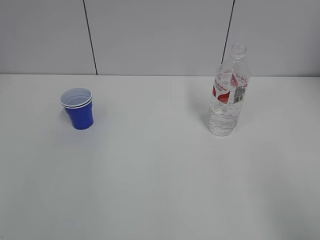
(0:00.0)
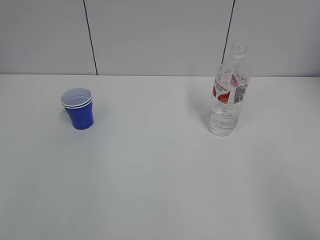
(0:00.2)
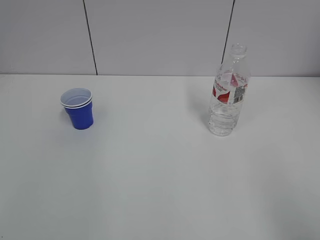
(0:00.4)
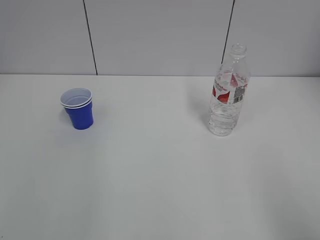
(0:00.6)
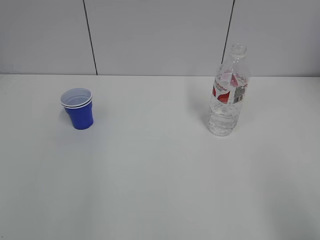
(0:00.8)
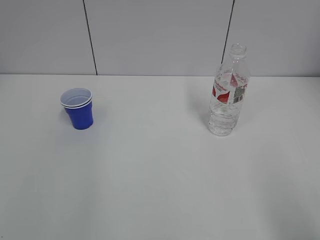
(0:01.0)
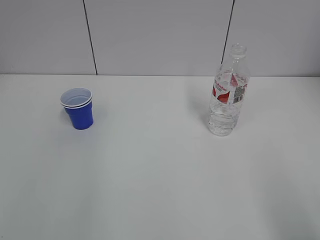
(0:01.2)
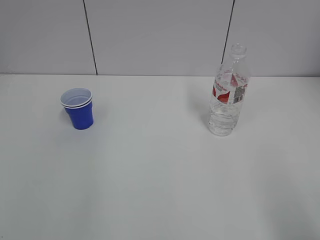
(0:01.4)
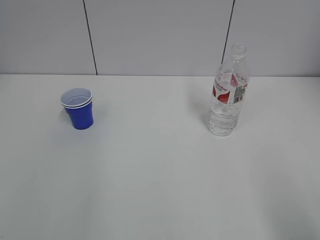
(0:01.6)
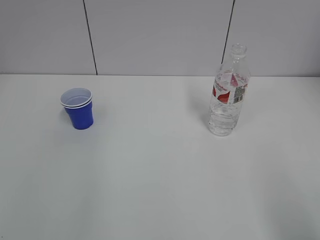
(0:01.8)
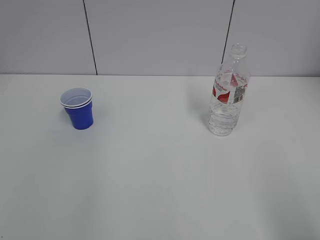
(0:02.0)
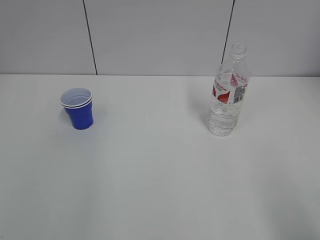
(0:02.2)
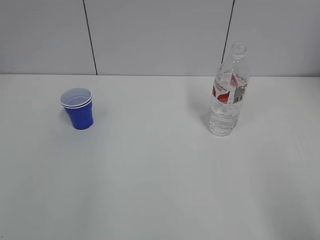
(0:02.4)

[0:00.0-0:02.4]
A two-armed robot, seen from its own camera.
0:01.2 to 0:02.4: Both grippers stay put.

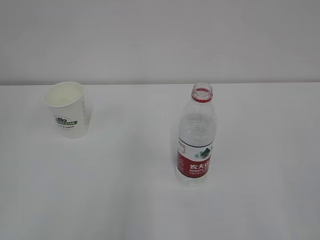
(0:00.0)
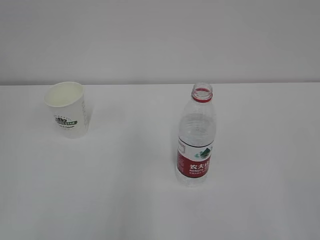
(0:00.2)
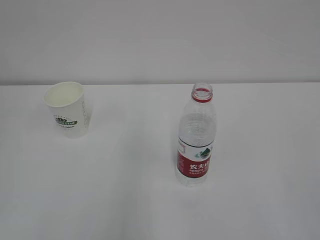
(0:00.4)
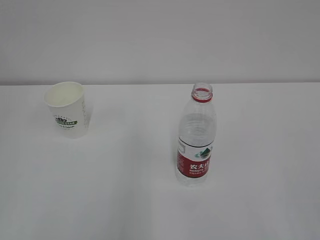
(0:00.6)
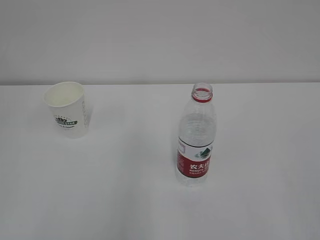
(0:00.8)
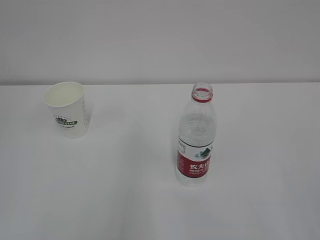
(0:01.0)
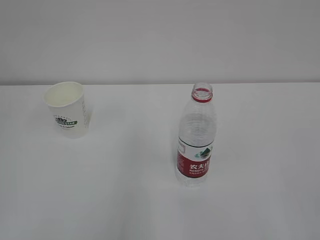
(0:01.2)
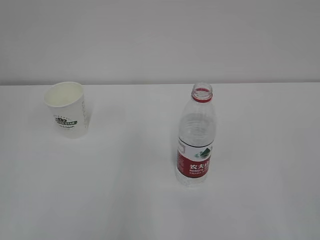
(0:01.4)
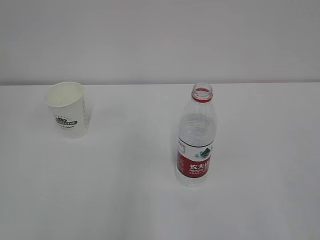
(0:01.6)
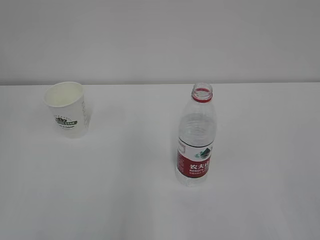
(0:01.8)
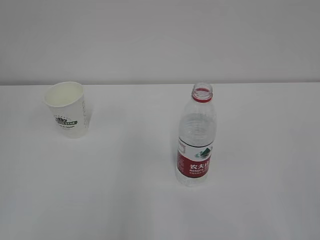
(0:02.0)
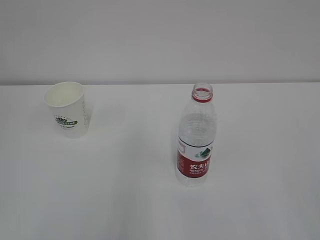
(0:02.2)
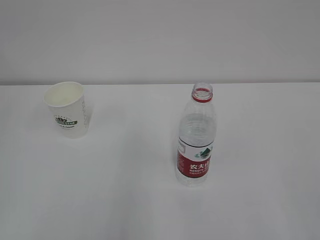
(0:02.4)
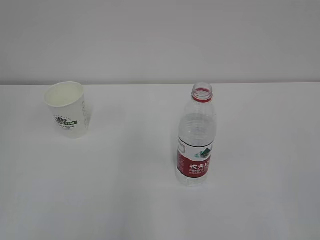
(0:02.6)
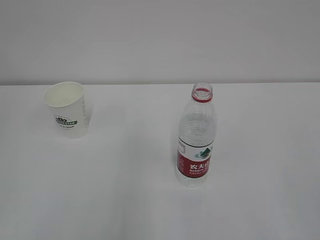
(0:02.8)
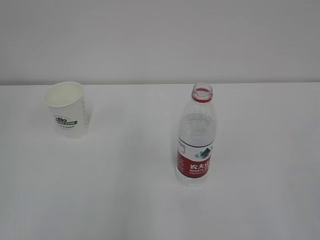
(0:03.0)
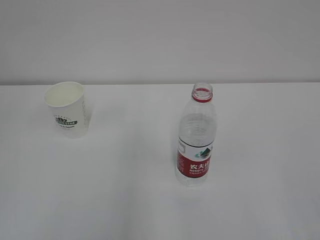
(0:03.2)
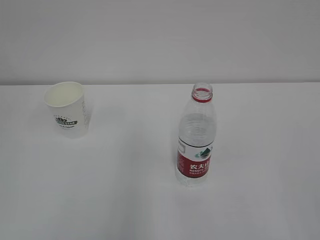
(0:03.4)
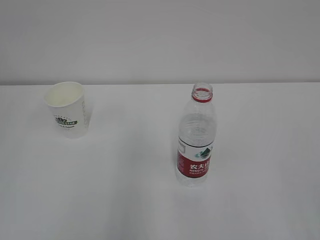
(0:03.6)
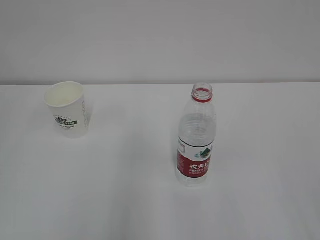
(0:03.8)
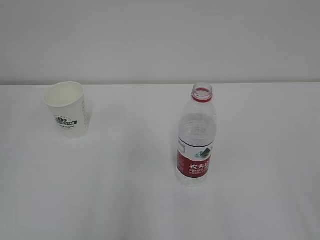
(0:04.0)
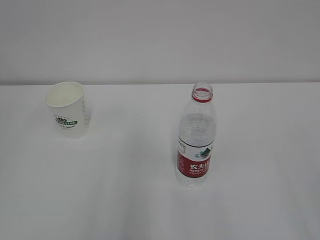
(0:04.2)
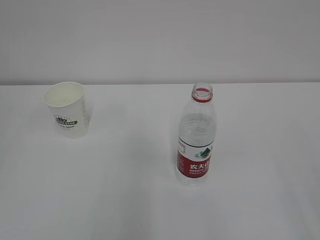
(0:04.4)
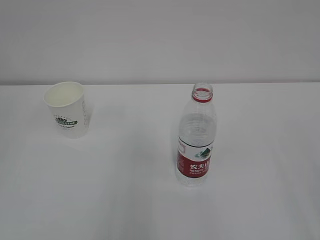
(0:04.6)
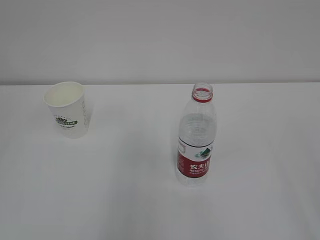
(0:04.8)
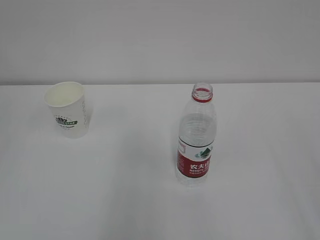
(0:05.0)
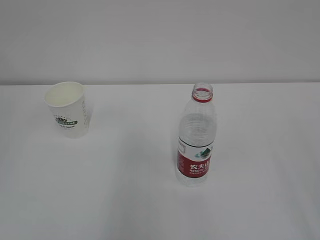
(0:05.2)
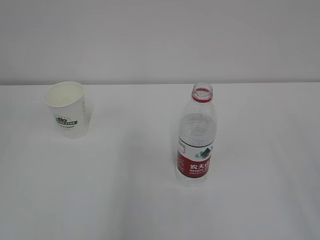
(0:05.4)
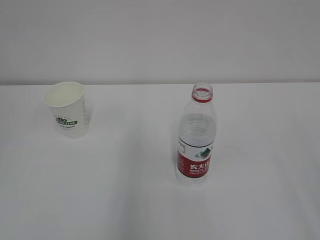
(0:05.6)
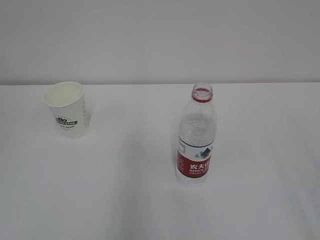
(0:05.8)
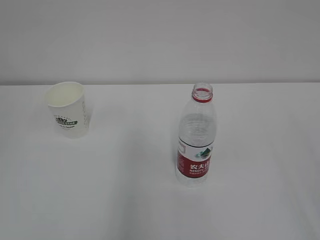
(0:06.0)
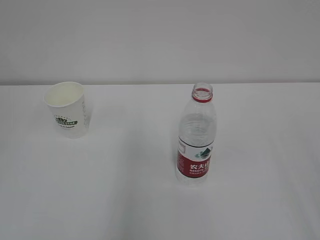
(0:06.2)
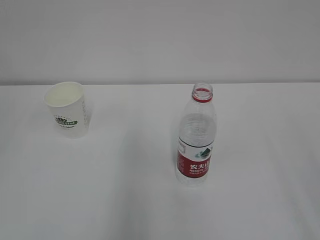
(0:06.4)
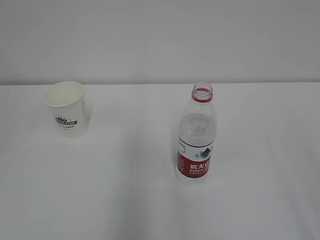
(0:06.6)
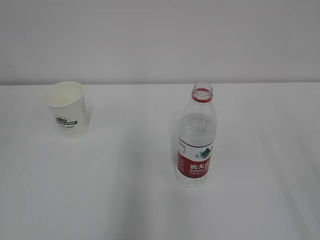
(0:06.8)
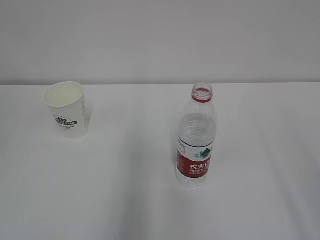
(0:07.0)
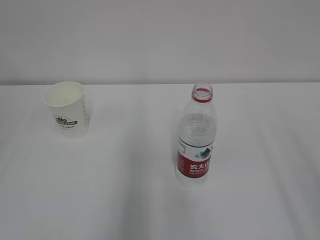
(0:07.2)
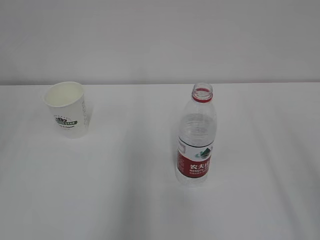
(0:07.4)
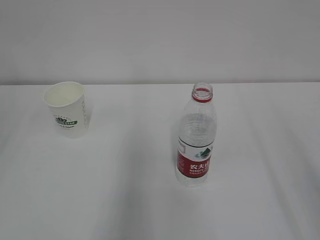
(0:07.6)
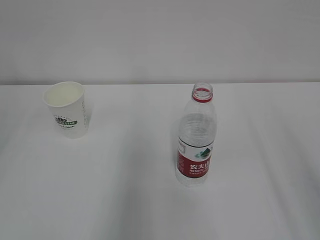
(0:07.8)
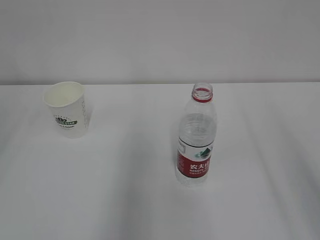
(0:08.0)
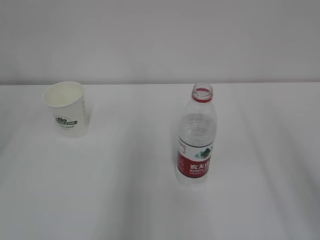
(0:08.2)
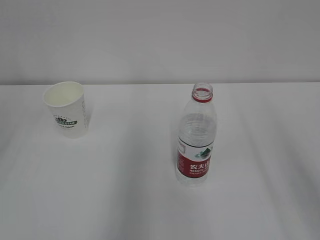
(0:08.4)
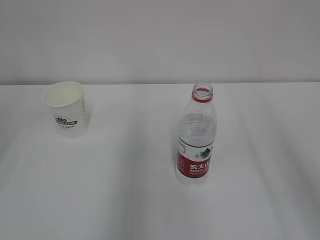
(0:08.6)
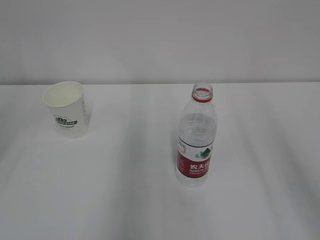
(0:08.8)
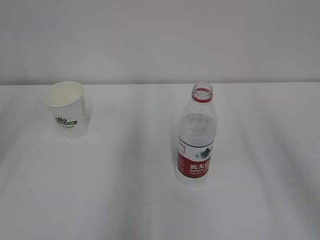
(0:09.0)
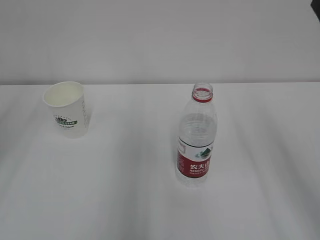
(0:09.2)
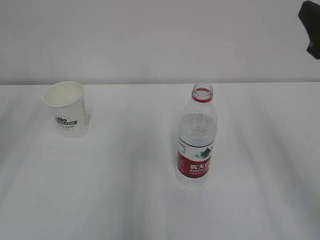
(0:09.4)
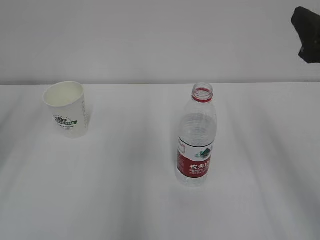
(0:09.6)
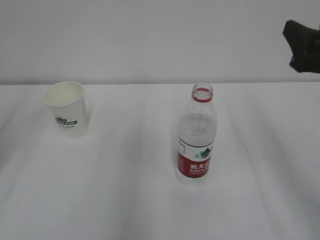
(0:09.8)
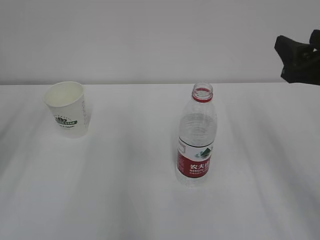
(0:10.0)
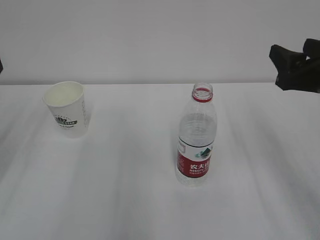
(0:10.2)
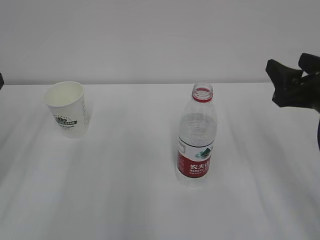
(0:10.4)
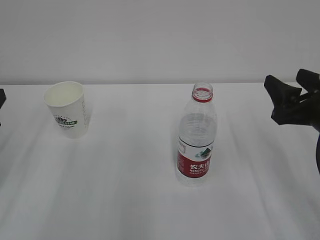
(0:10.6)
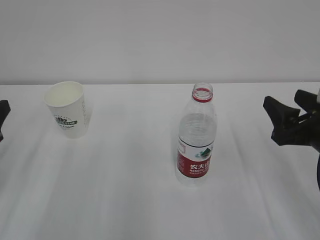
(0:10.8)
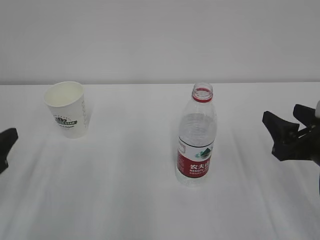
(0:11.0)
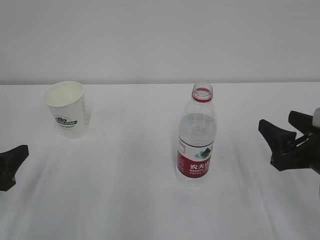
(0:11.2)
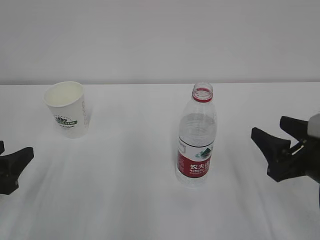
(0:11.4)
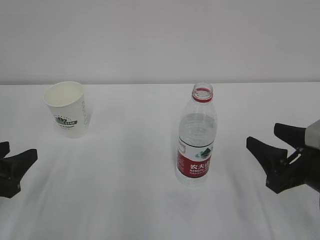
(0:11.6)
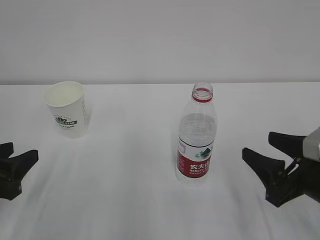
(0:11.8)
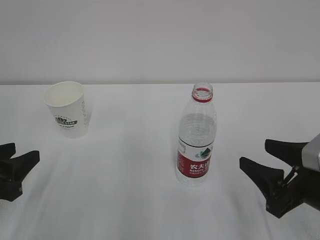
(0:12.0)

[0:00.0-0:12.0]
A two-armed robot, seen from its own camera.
0:01.6 to 0:03.0: The two grippers keep their place.
0:09.0 to 0:10.4: The right gripper moves downward and forward, some 15 cm.
0:10.4 to 0:12.0: The right gripper is displaced downward and backward by some 10 cm. Meanwhile the left gripper goes some 10 cm downward.

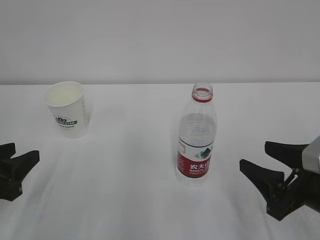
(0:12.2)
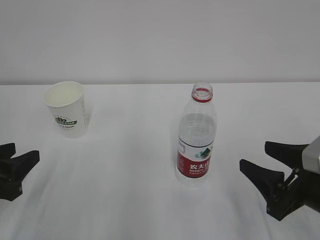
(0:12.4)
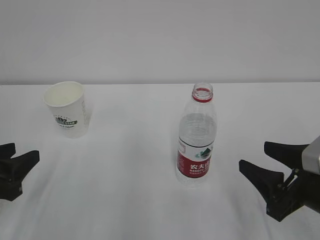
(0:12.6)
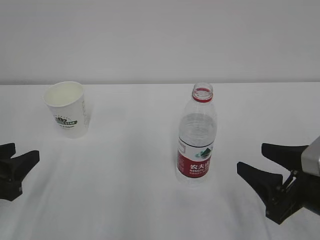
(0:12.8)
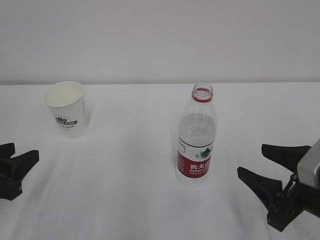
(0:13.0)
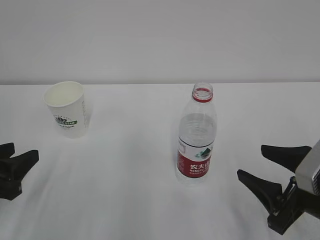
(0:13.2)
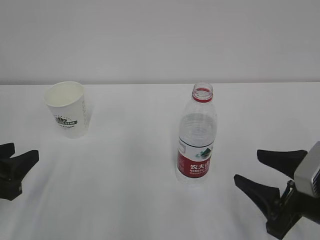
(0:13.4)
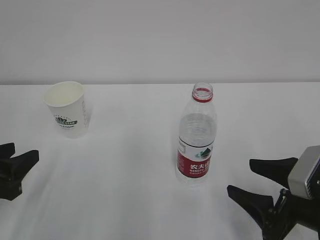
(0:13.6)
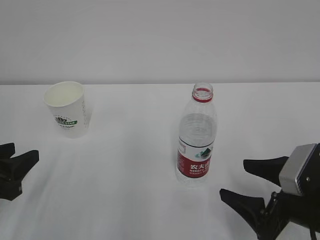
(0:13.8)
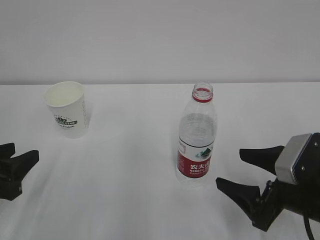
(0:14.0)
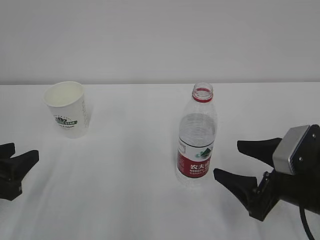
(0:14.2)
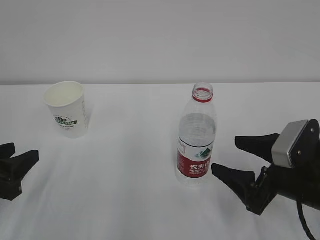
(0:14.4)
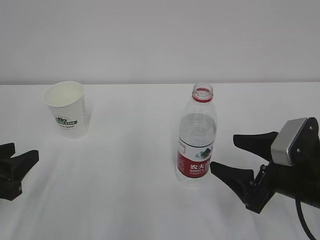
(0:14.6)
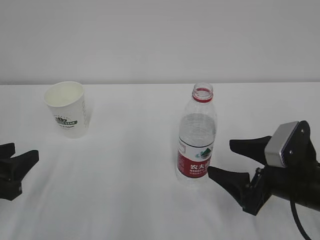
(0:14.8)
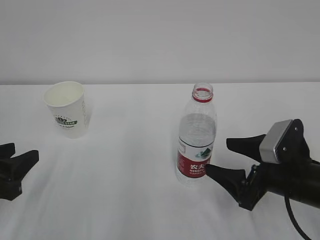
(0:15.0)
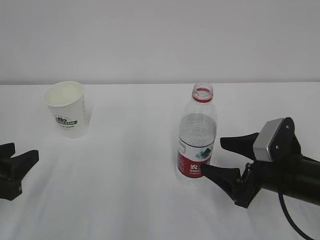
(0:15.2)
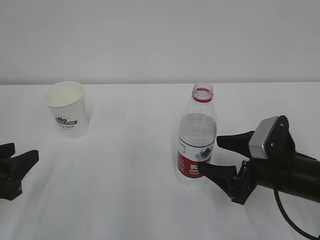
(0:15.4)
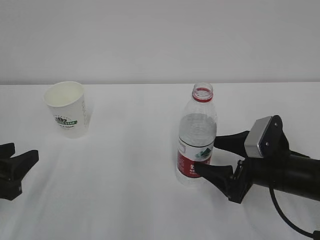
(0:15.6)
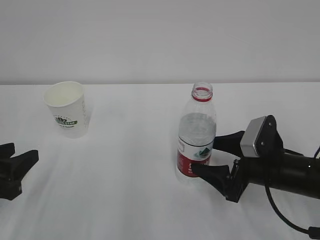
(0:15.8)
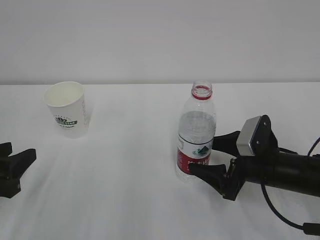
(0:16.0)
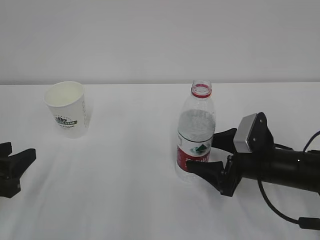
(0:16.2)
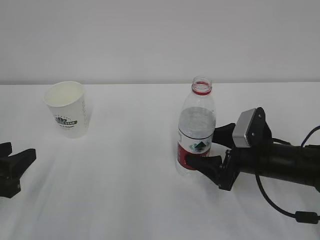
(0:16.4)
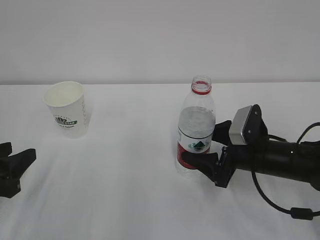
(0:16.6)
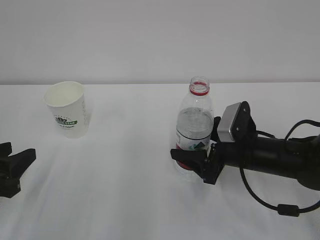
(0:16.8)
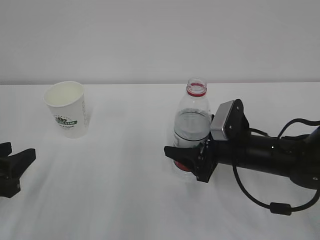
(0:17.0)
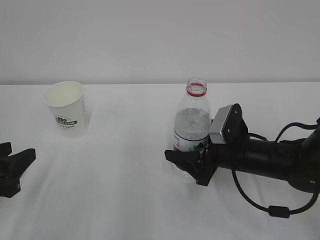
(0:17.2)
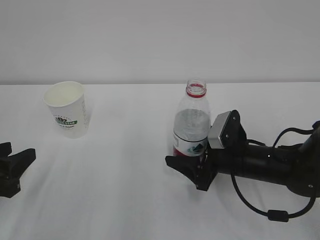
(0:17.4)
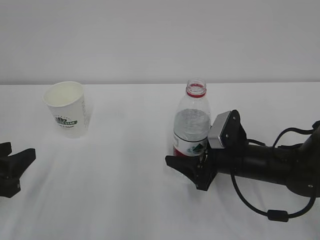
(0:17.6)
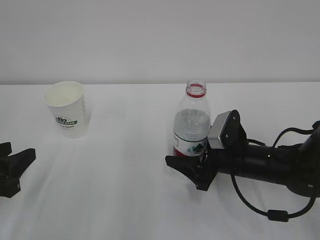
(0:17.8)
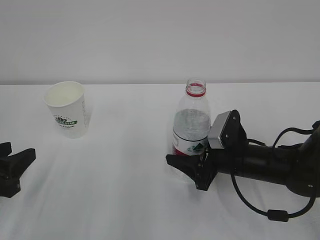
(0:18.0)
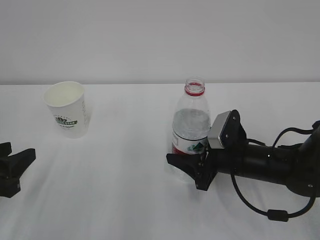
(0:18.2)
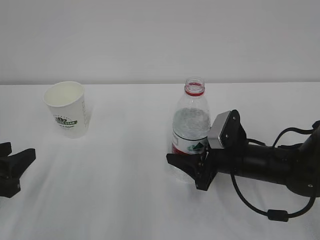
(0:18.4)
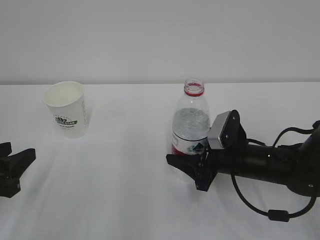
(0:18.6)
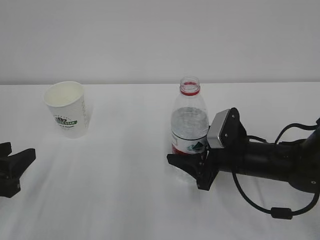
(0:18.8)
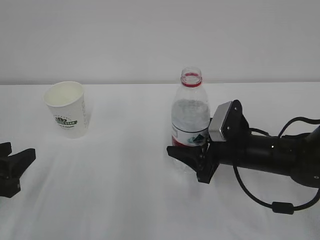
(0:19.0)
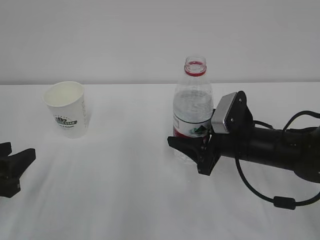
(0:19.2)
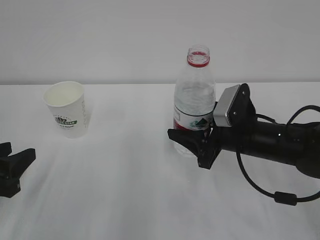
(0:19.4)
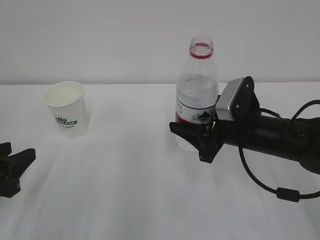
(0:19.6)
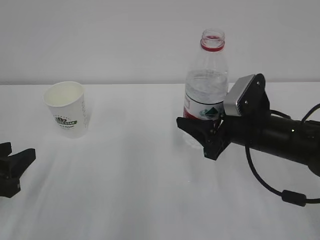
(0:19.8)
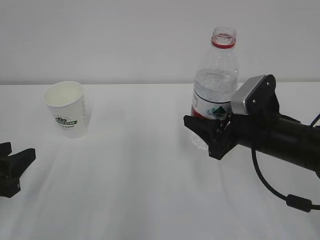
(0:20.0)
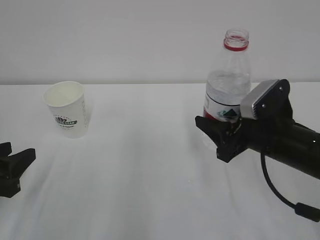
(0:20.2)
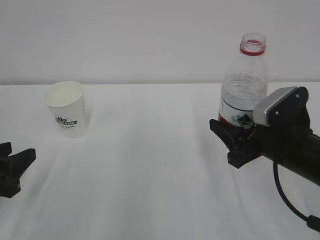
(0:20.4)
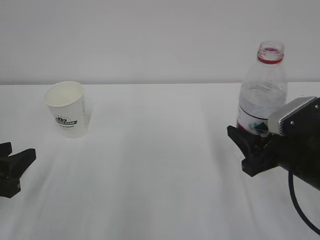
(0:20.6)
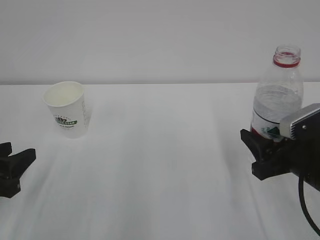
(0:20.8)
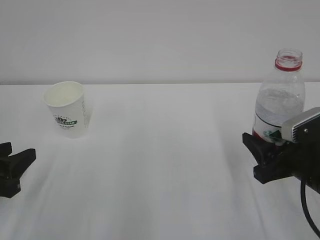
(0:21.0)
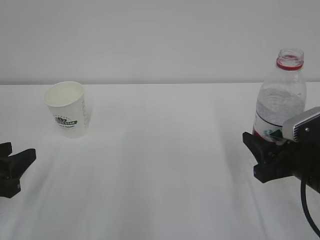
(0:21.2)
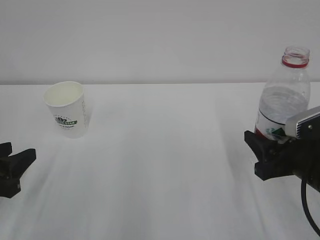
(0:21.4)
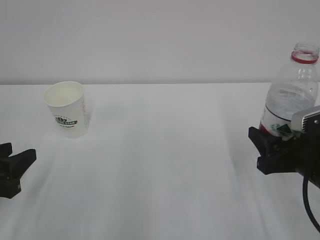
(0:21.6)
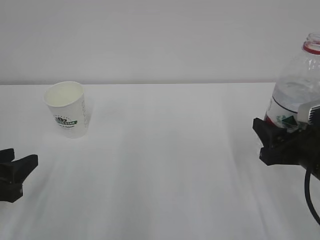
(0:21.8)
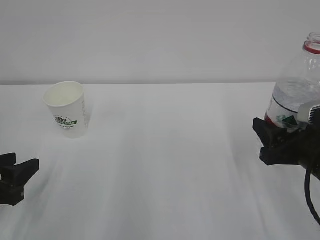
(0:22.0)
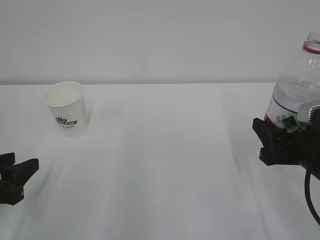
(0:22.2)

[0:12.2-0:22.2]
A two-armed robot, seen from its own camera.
0:12.2 to 0:13.6: The grippers move only a little.
0:13.6 to 0:15.0: The right gripper moves forward, roughly 5 cm, and opens up.
0:15.0 to 0:16.4: The right gripper travels forward by some 5 cm.
0:16.4 to 0:18.0: The right gripper closes up.
0:18.0 to 0:19.4: The right gripper heads upward, covering approximately 5 cm, and closes its fingers.
0:19.4 to 0:20.8: The right gripper is displaced backward and to the right by some 10 cm.
0:20.8 to 0:22.2: The grippers stay close to where they were, moving slightly.
